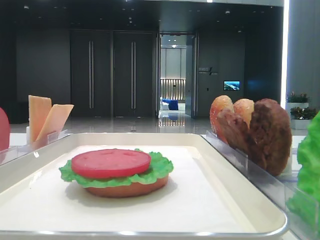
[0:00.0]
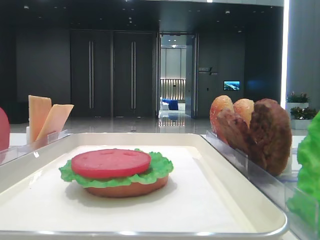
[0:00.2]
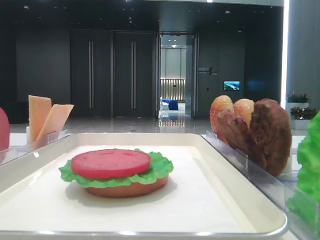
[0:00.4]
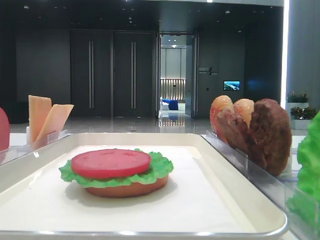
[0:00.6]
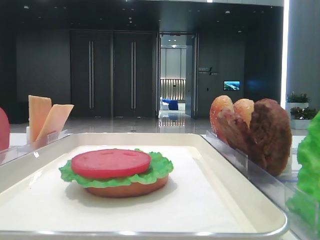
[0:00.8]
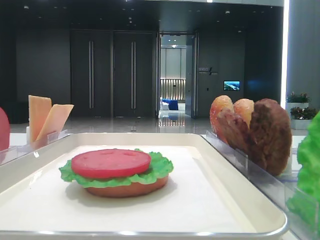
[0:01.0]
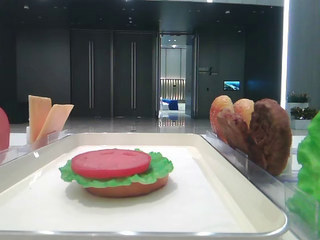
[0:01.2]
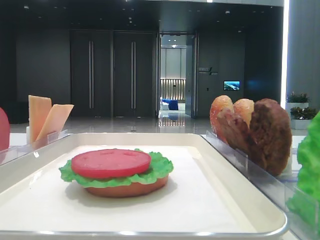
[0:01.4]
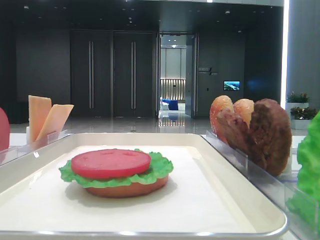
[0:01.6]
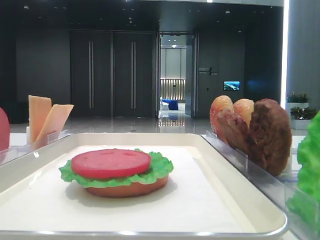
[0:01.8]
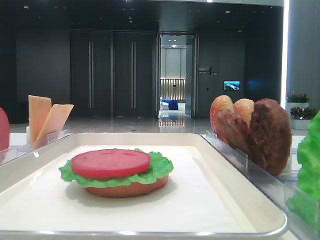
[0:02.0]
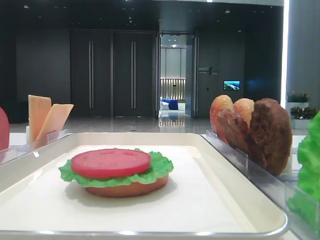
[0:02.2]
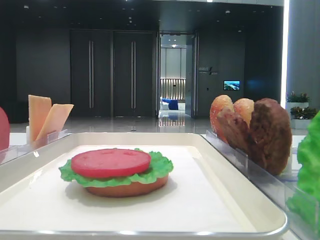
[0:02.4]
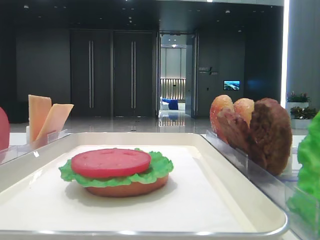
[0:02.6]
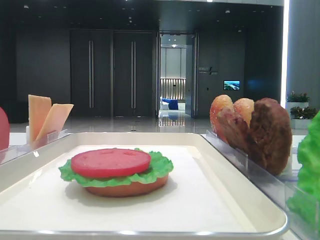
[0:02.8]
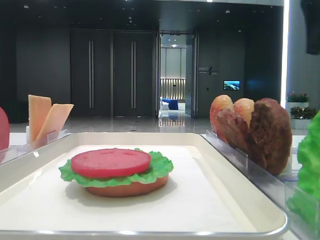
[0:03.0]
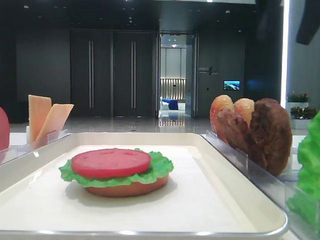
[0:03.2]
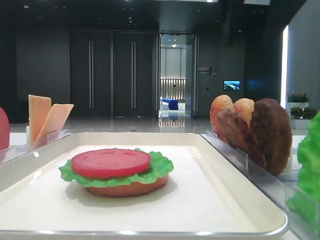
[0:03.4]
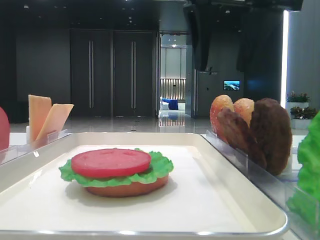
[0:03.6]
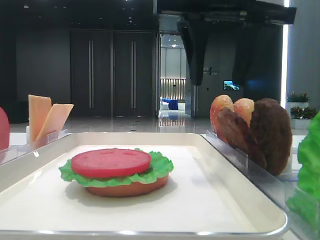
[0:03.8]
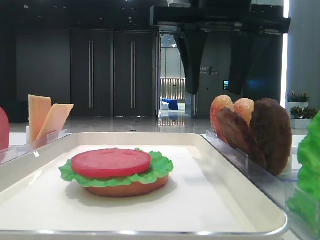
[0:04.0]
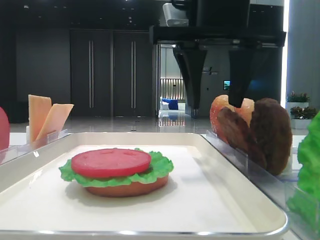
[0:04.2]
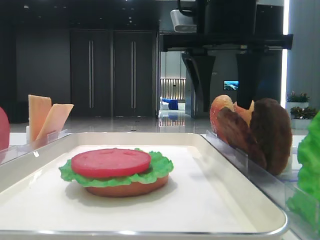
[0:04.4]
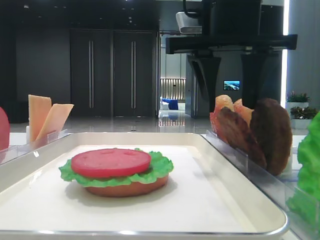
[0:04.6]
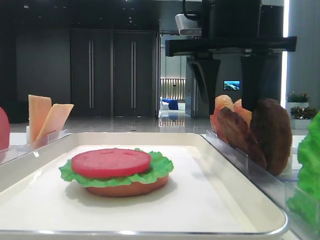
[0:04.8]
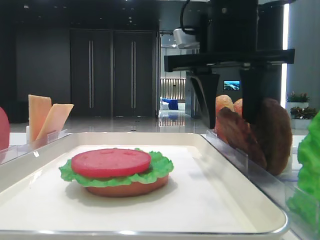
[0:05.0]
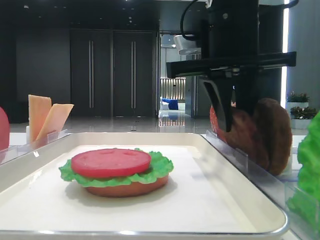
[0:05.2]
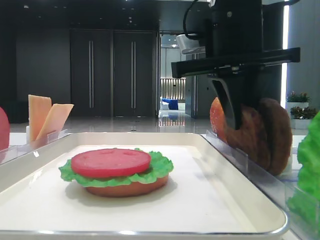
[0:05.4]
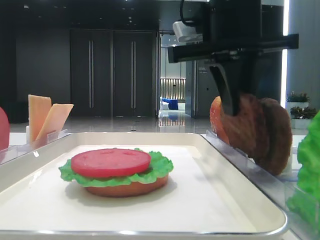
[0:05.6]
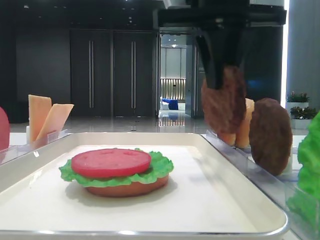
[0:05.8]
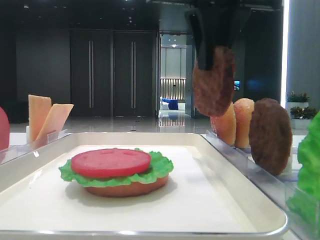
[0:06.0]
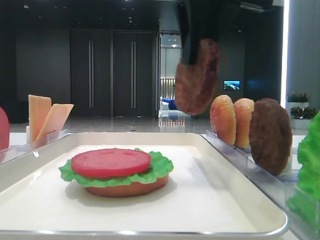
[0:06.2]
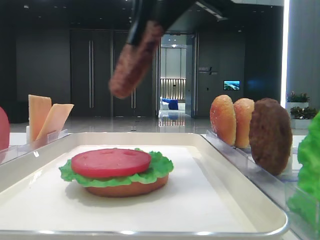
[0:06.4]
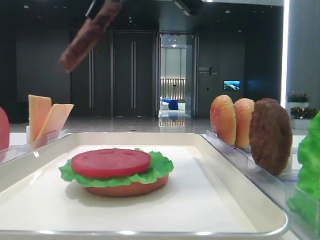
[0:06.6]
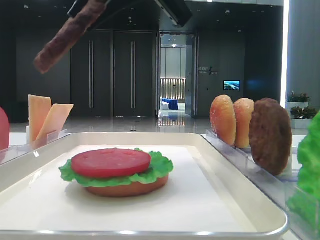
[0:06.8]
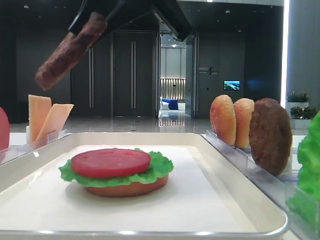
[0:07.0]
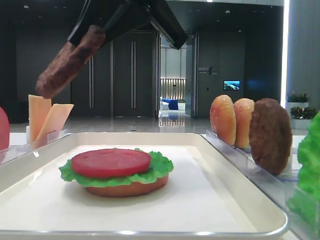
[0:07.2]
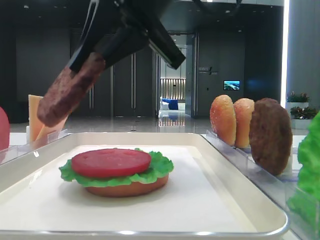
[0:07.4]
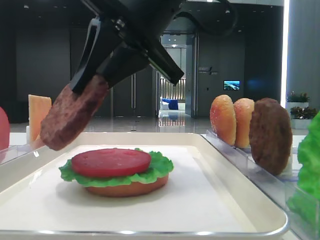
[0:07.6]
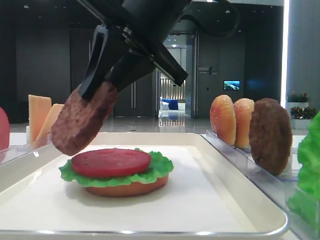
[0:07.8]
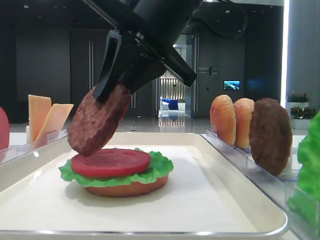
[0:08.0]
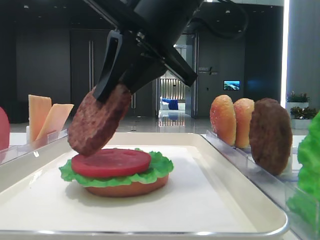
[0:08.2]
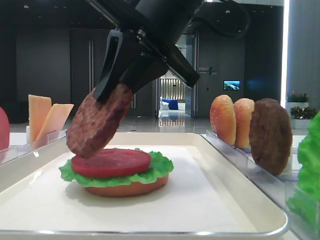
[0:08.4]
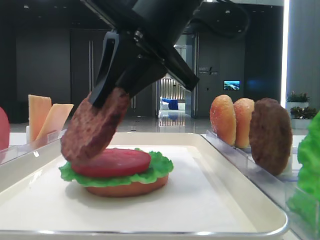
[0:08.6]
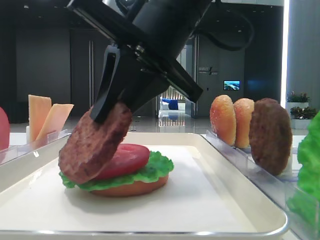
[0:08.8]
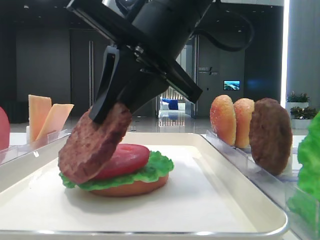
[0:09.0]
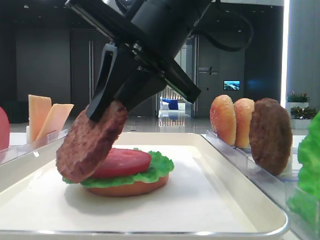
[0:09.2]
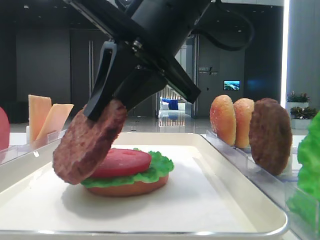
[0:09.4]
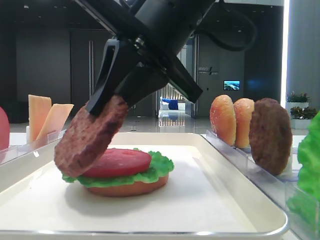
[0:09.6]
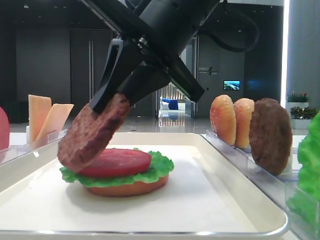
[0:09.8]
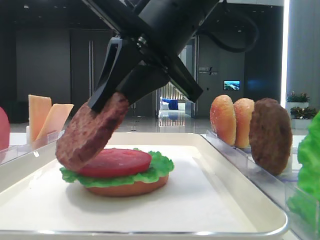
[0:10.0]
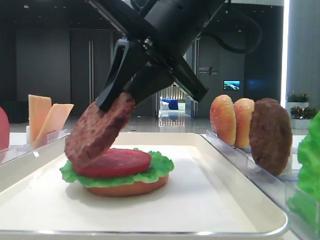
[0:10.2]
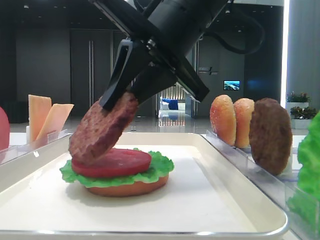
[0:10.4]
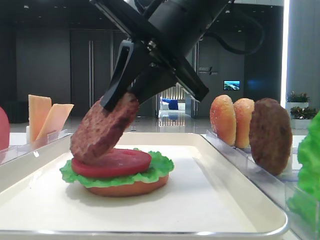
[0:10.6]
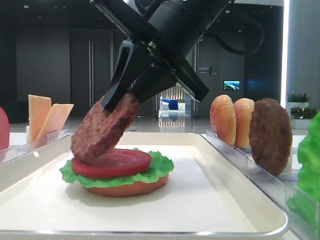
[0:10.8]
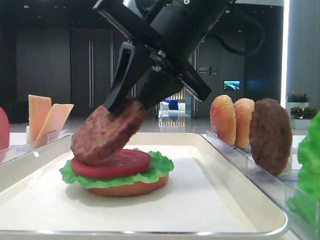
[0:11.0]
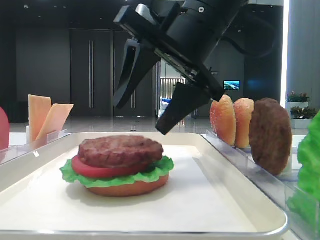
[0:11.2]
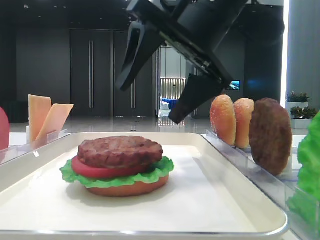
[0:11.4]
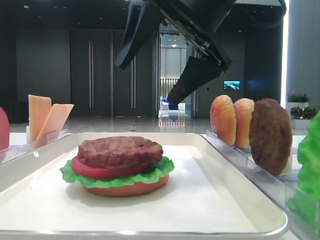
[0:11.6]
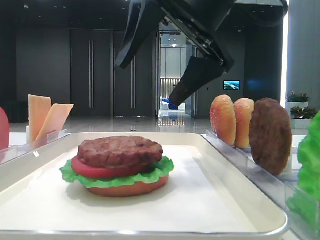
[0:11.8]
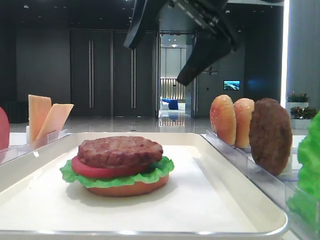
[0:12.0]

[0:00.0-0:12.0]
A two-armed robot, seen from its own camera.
Step, 0:00.0 to 0:05.2: Grab the patty with the right hand.
Step, 0:05.4 to 0:11.0: Place the patty on the tomato slice with the right hand.
0:01.6 to 0:03.0: The right gripper is displaced forward by approximately 30 cm.
0:03.0 to 0:04.4: The right gripper shifts about 15 cm to the left and downward.
0:04.4 to 0:06.0: The right gripper moves approximately 5 cm, and closes.
0:06.0 to 0:07.6: The right gripper travels to the left and downward by some 10 cm.
0:07.6 to 0:10.4: The grippers stay close to where they were, moving slightly.
0:10.4 to 0:12.0: The right gripper heads upward, covering about 5 cm, and opens.

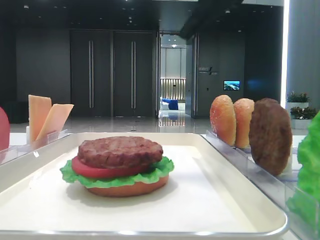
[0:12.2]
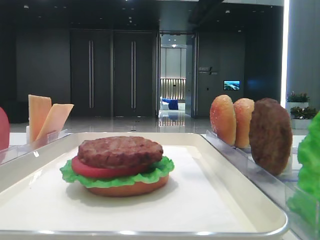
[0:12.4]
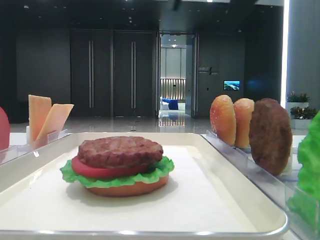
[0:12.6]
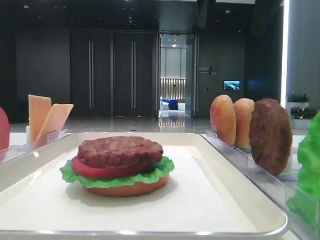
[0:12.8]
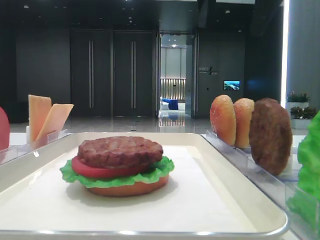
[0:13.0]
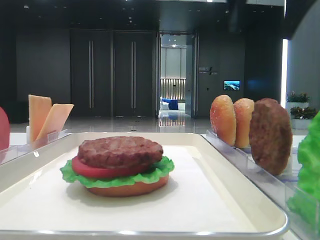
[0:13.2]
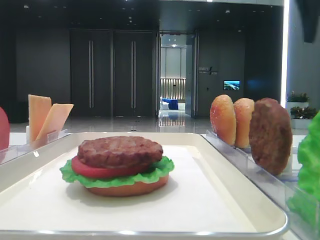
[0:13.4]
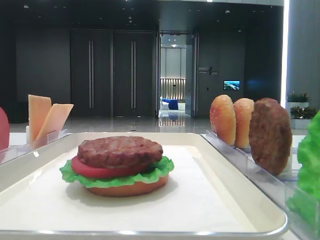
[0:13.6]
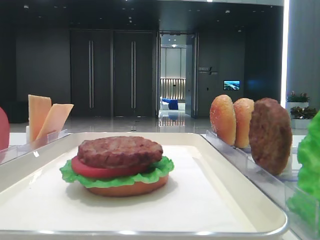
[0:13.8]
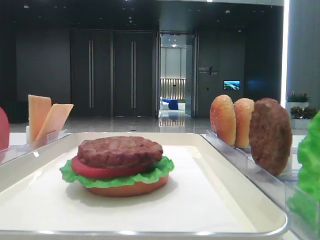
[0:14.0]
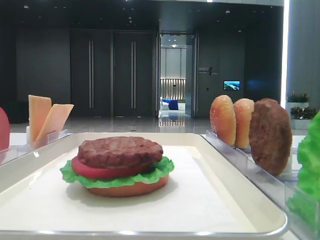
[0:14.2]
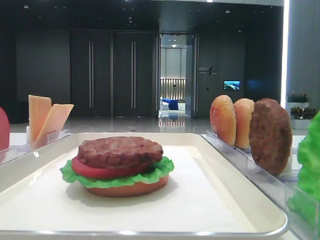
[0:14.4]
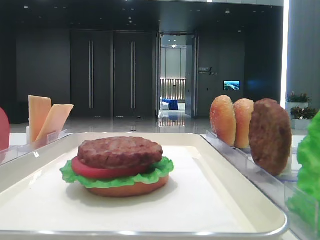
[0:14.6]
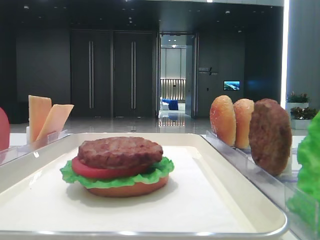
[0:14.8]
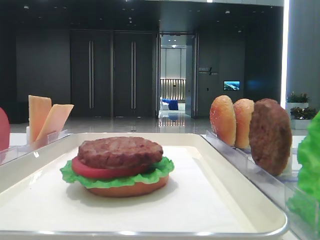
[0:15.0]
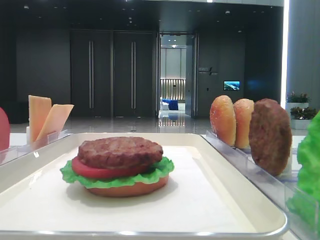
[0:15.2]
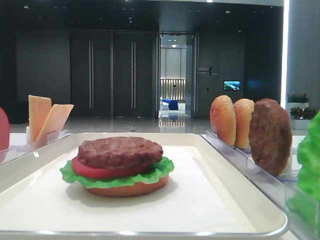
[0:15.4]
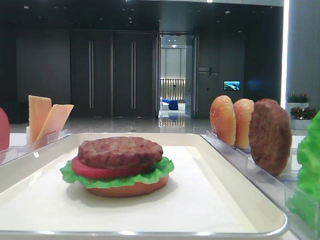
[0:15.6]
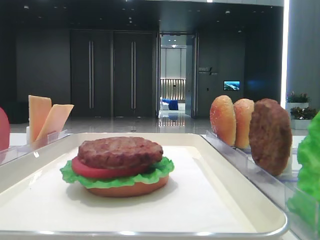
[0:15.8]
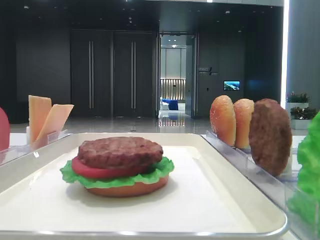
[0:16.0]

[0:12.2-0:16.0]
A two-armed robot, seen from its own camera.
0:12.2 to 0:13.4: The right gripper goes approximately 20 cm to the right.
0:13.4 to 0:14.8: The right gripper is displaced backward by about 30 cm.

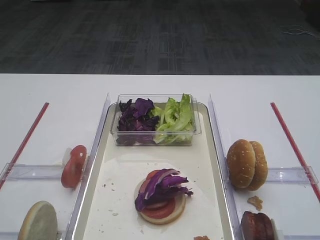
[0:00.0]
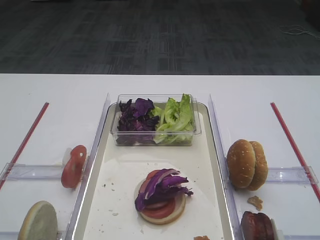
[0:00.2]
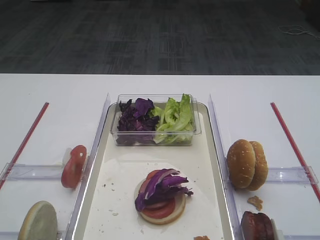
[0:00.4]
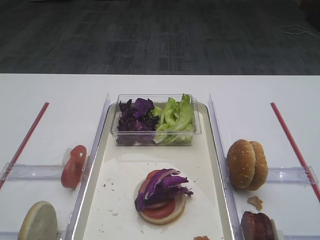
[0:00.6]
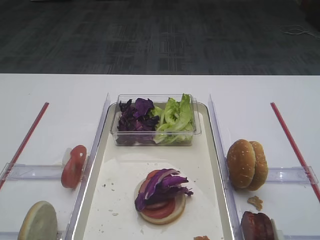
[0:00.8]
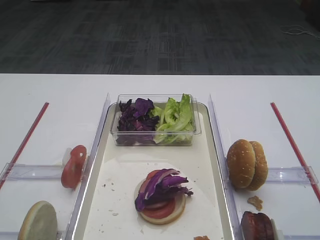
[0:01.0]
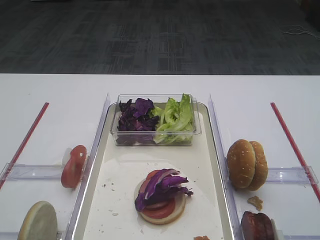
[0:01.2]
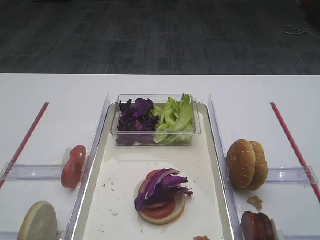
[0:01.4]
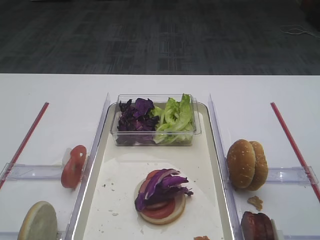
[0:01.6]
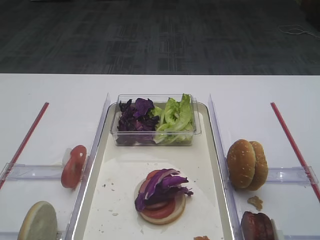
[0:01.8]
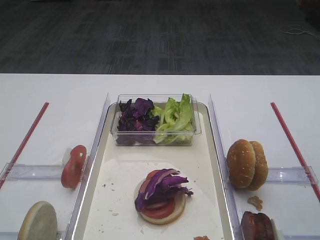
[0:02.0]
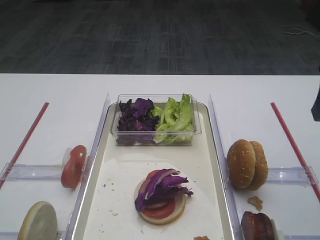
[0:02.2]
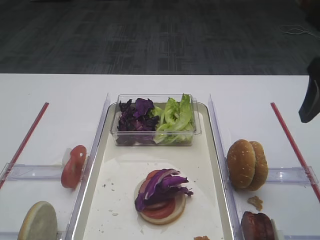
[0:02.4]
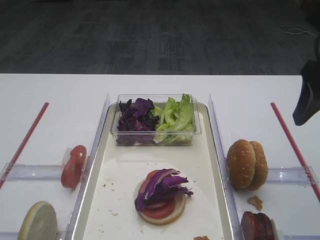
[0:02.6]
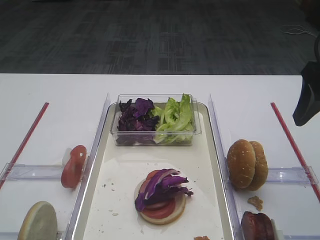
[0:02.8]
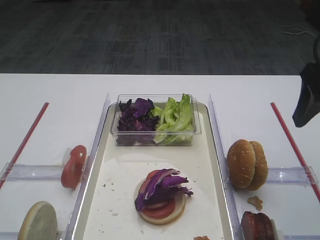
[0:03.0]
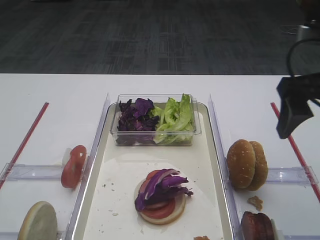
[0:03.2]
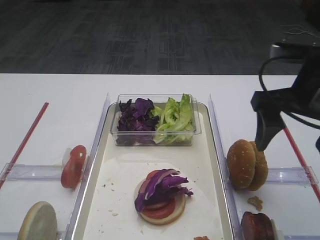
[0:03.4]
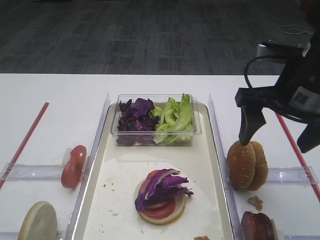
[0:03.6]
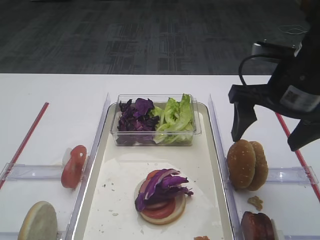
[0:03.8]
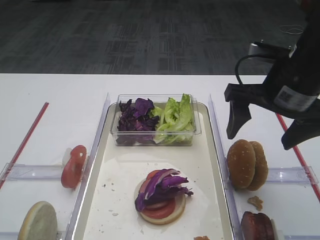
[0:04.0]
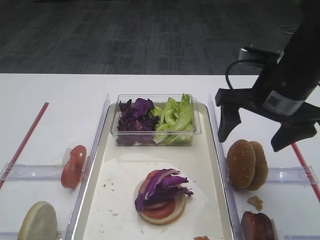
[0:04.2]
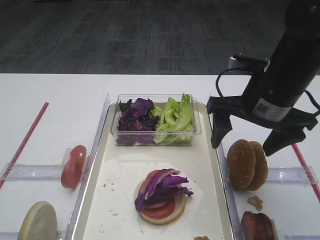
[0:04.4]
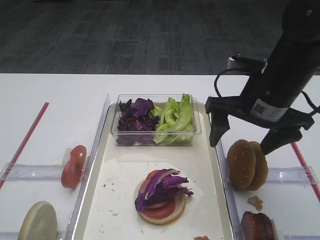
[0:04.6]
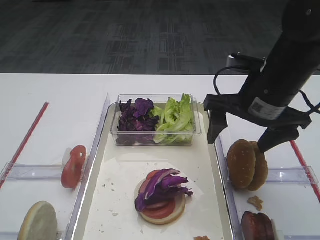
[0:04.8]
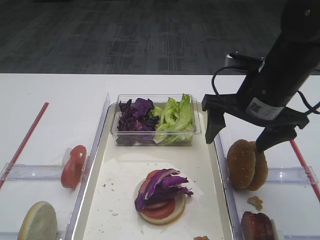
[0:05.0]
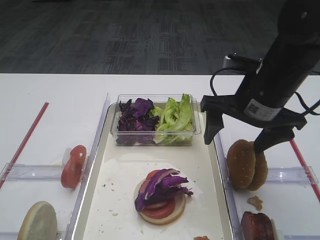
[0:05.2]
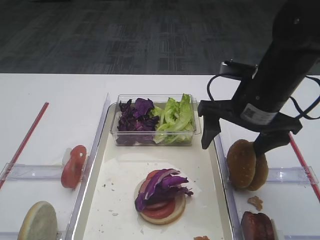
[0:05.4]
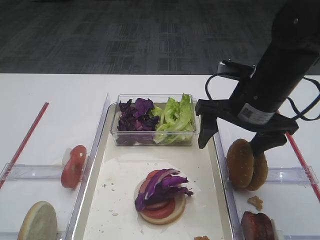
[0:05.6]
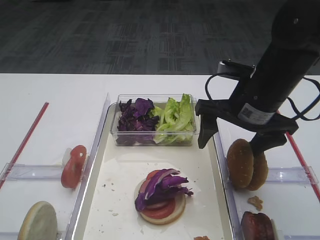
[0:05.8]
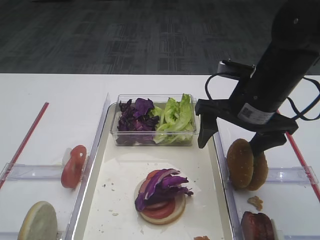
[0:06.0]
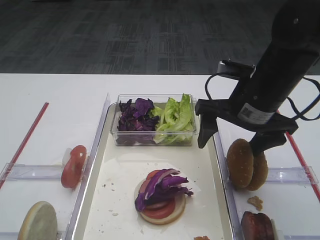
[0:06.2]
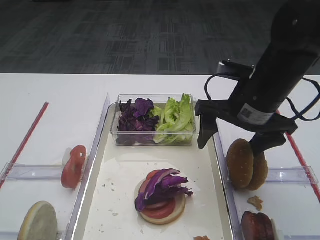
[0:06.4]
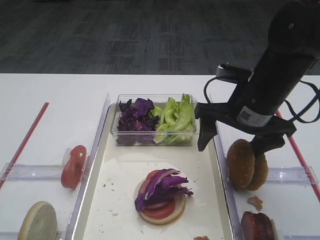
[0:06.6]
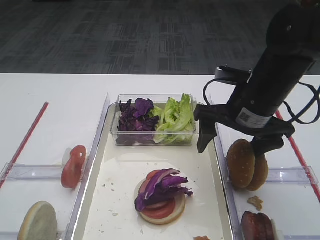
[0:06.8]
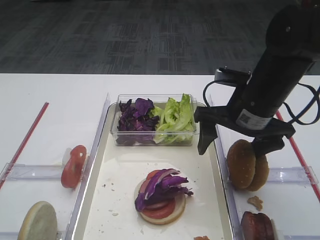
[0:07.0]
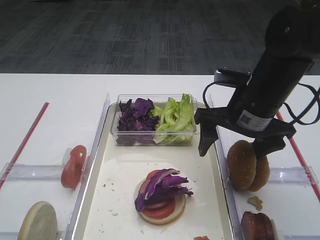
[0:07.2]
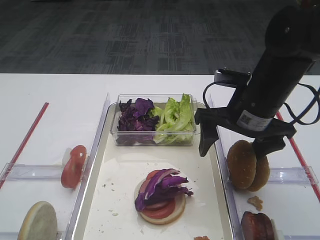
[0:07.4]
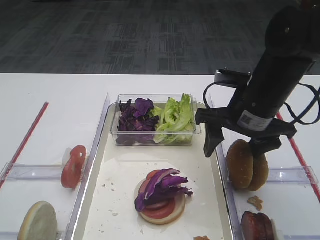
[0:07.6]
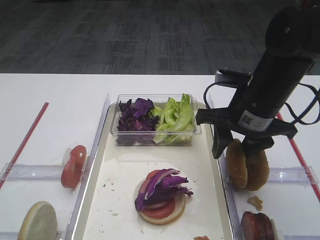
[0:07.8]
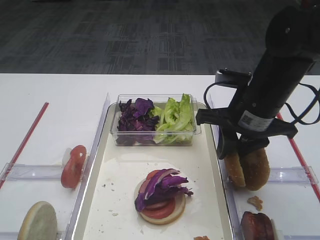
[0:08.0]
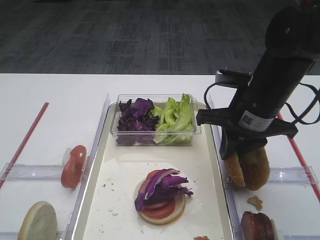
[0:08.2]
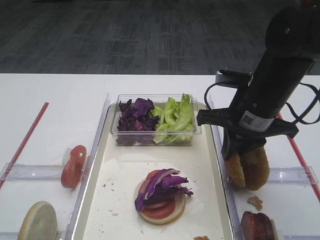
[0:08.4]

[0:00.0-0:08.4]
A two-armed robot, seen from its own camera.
0:01.4 to 0:02.8: The right gripper shifts about 10 cm forward.
0:02.8 to 0:04.2: The right gripper moves to the left and downward, approximately 10 cm.
0:04.2 to 0:05.6: There are only small adjustments of the grippers.
0:05.6 to 0:07.0: Neither gripper changes place.
0:07.0 to 0:08.4: The right gripper closes up.
